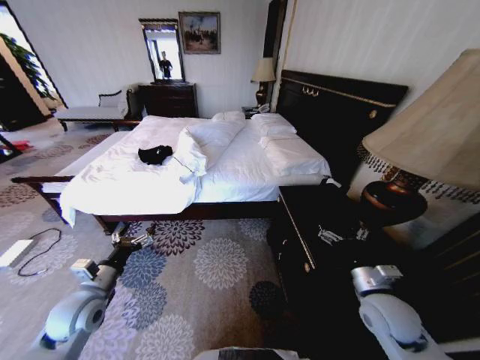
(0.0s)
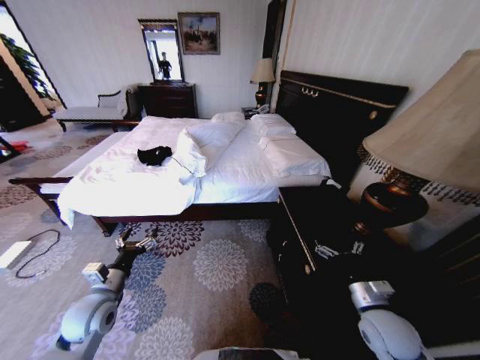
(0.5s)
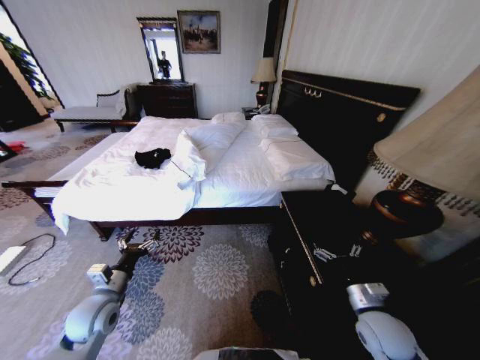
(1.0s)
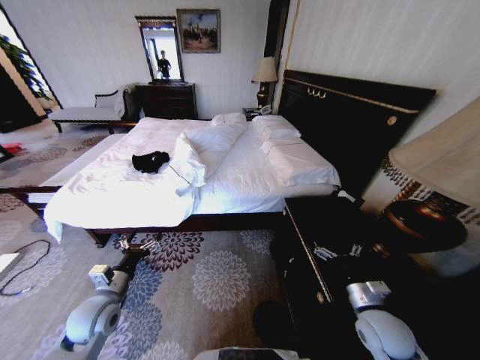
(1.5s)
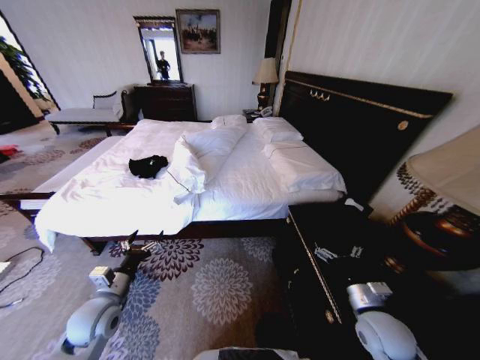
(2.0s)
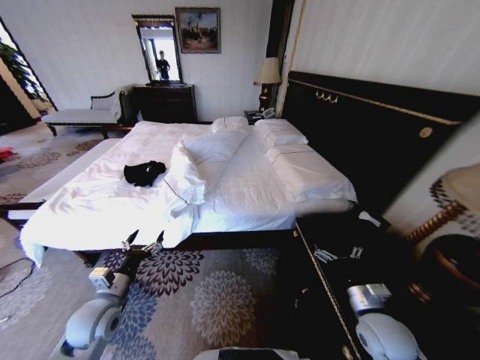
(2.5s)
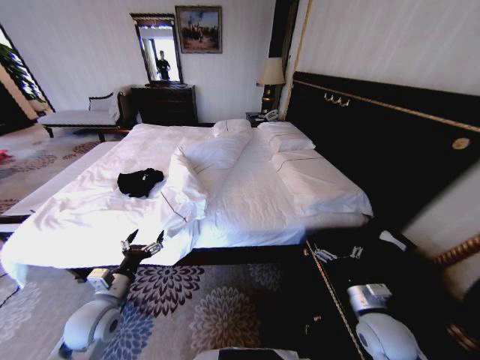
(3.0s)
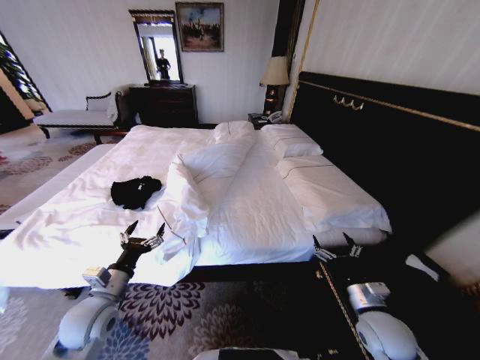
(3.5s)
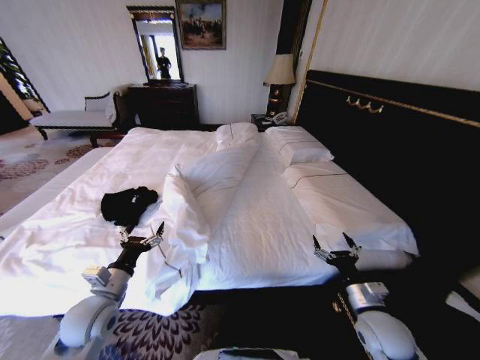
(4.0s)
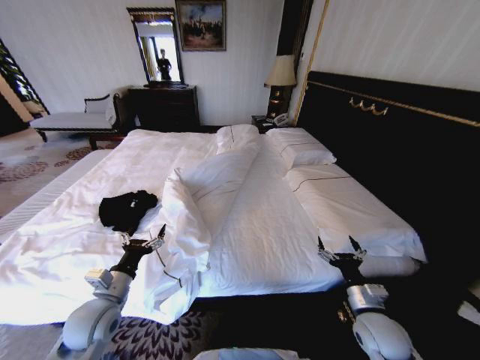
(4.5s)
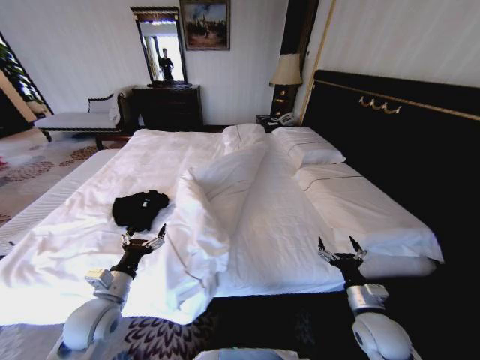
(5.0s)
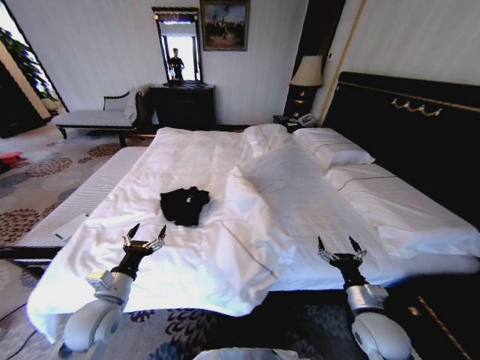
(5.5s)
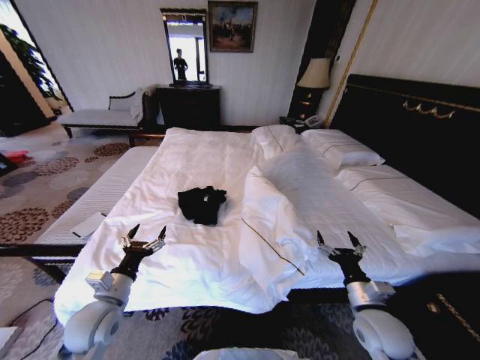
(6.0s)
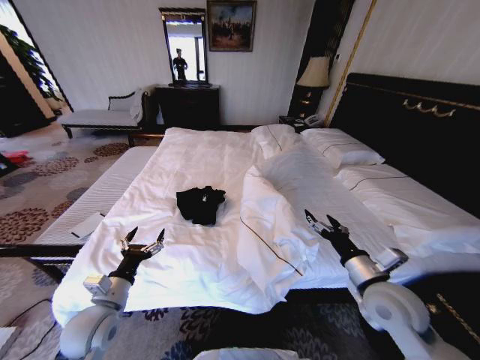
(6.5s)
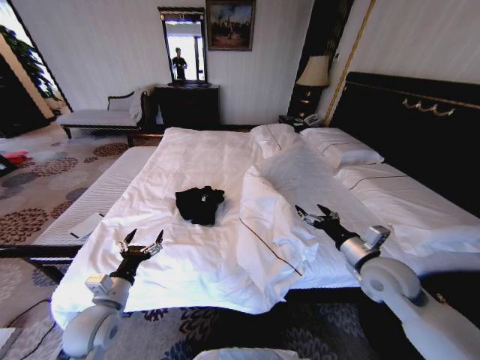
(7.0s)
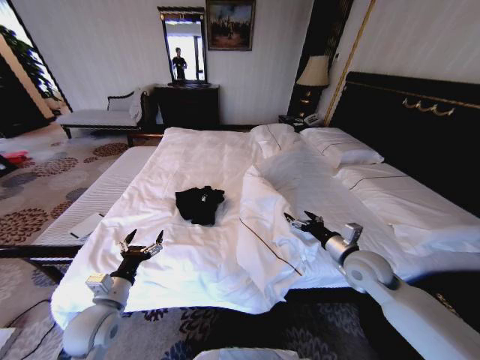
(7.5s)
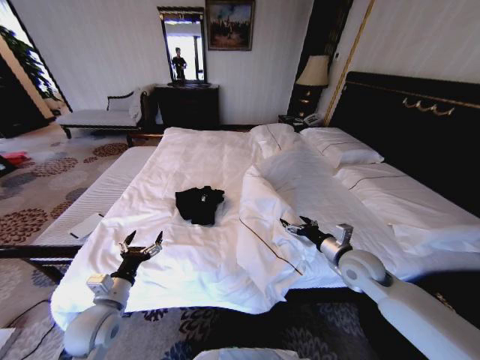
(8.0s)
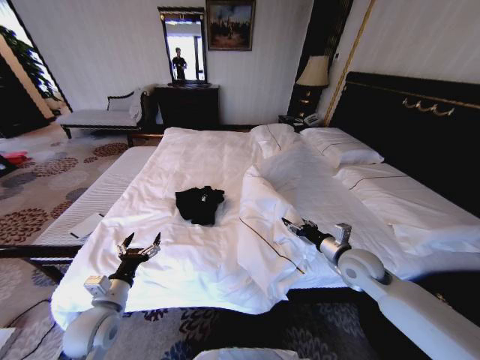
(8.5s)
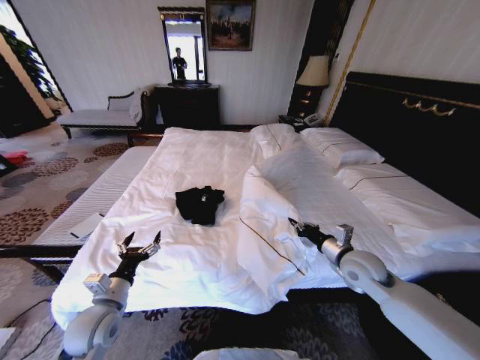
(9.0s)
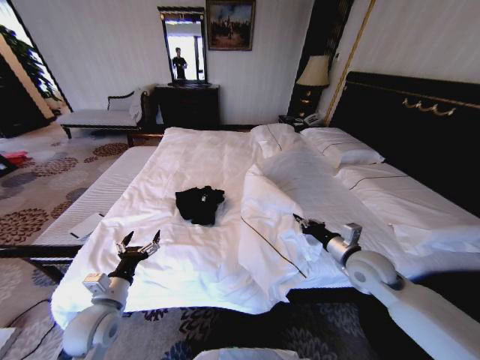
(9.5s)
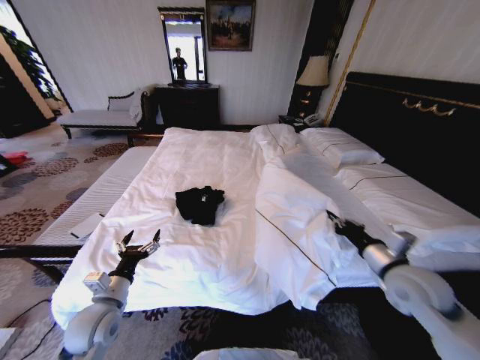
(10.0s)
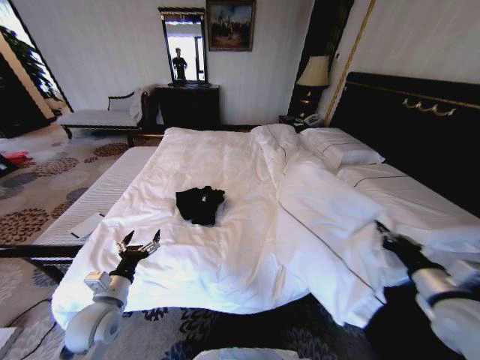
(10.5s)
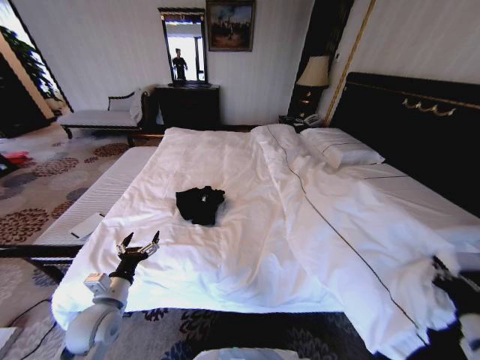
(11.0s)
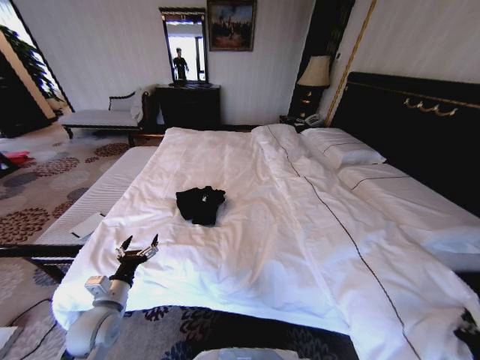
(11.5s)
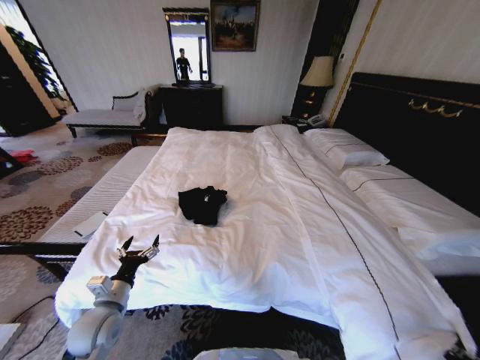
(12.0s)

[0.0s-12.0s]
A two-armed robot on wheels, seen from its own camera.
Task of the whole recording: Fold the clothes on the bed.
6.0s to 8.0s: The right gripper moves forward and upward, some 15 cm.
8.0s to 10.0s: The right gripper travels backward and to the right by roughly 10 cm, and closes its fingers.
10.0s to 12.0s: The right gripper is displaced downward, backward and to the right by about 35 cm.

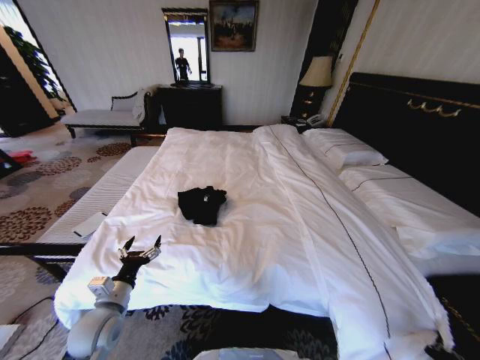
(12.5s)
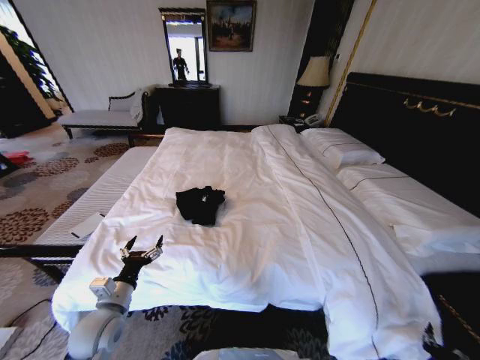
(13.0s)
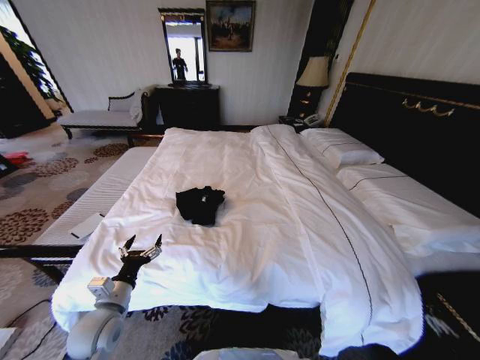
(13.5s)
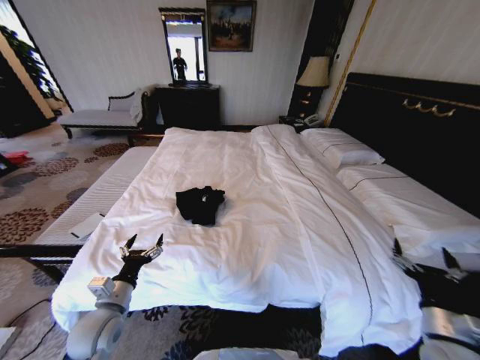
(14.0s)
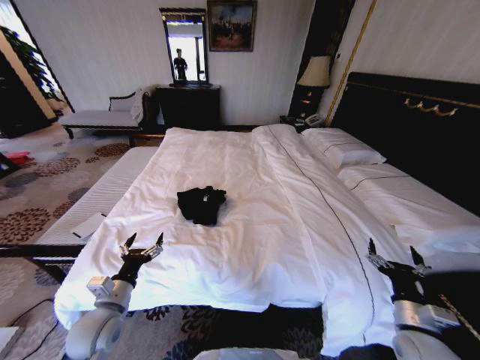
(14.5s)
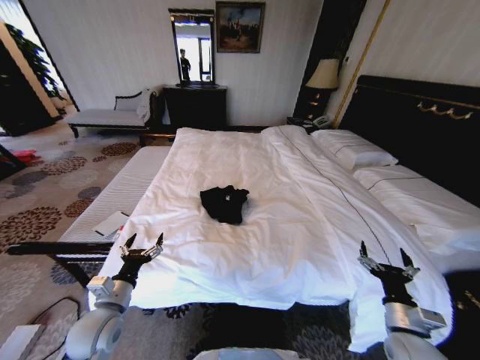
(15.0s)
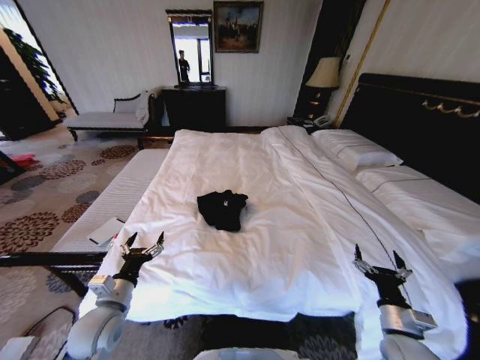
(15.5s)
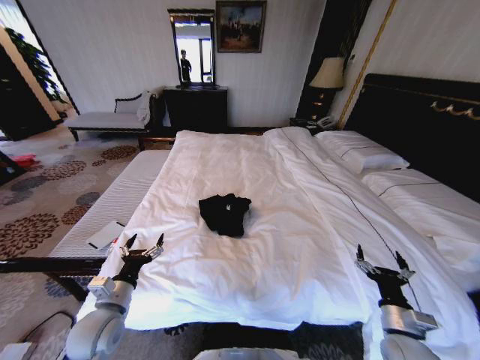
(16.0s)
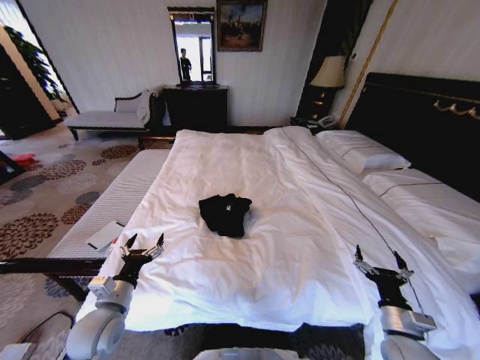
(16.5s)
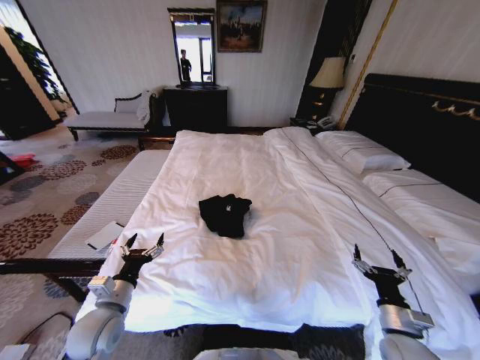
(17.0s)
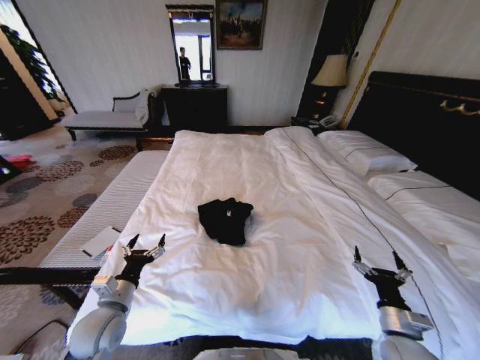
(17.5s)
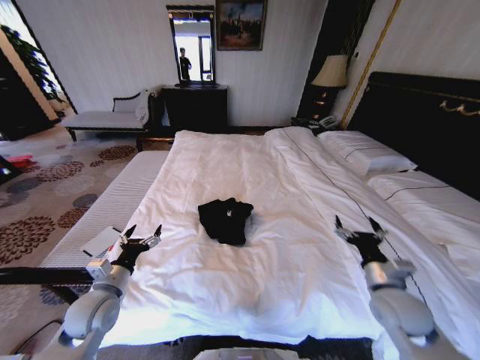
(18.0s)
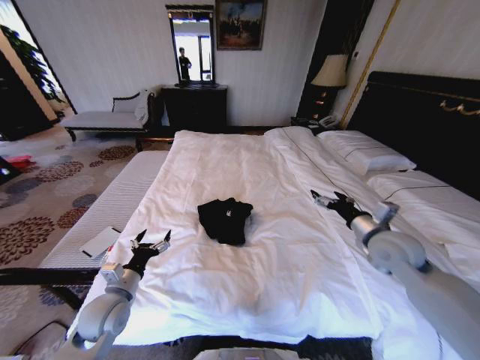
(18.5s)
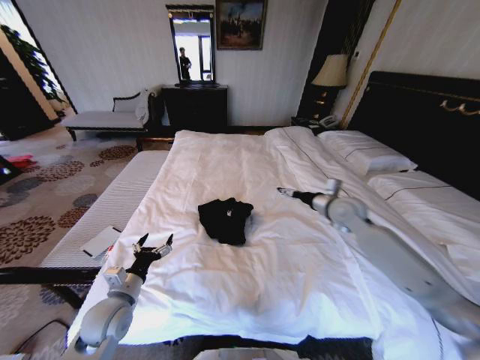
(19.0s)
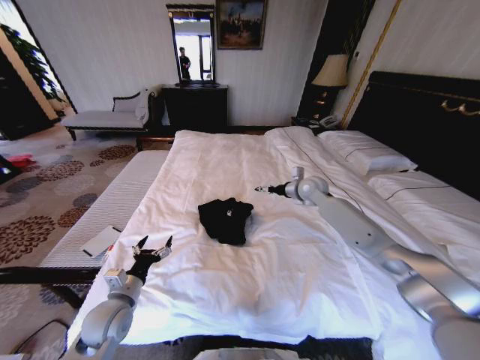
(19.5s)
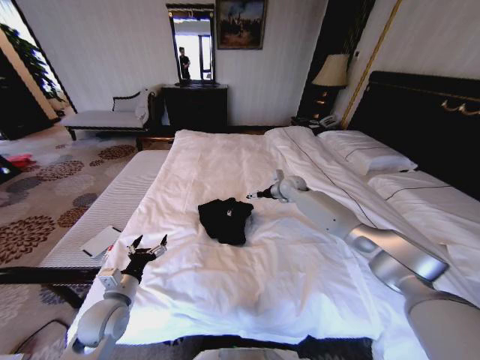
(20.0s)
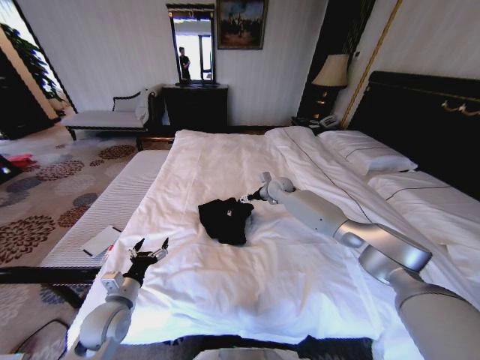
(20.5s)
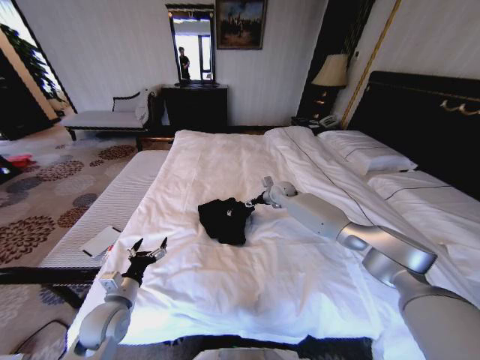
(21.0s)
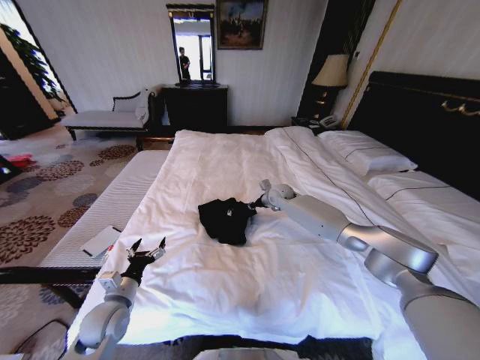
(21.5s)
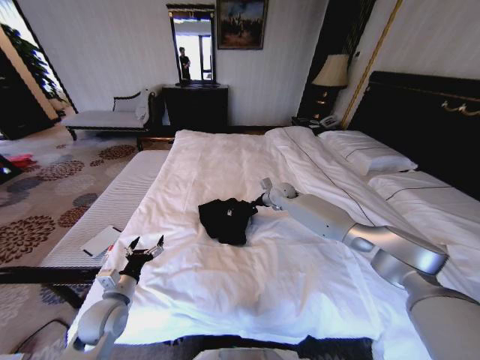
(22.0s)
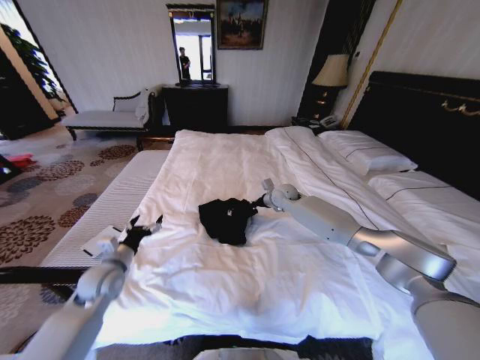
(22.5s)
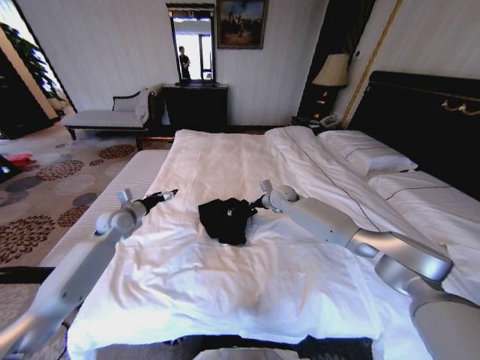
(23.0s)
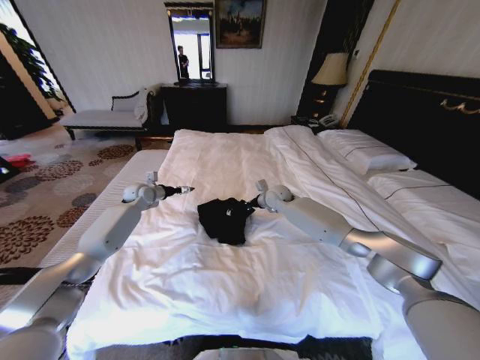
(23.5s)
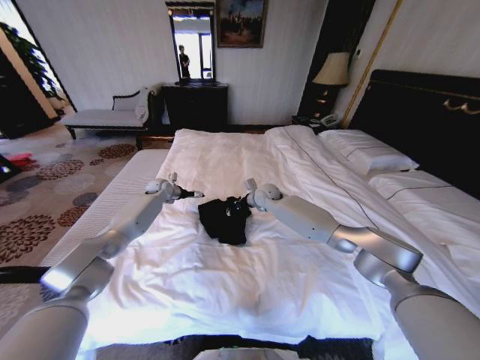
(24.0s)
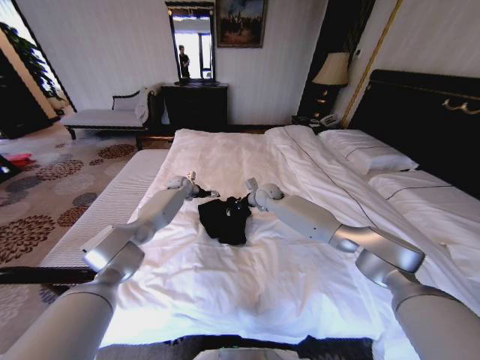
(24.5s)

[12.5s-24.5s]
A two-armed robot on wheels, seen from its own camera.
Task of the whole recording: Fold the clothes on the bed.
12.5s to 14.5s: The right gripper moves upward, to the left and forward, some 25 cm, and opens.
16.5s to 18.5s: The right gripper travels forward and upward by about 25 cm.
18.5s to 20.5s: The right gripper heads forward and to the left, covering approximately 35 cm.
20.5s to 22.5s: The right gripper closes. Meanwhile the left gripper heads forward, covering about 10 cm.
22.5s to 24.5s: The left gripper is displaced forward by some 40 cm; the right gripper shifts about 5 cm to the left.

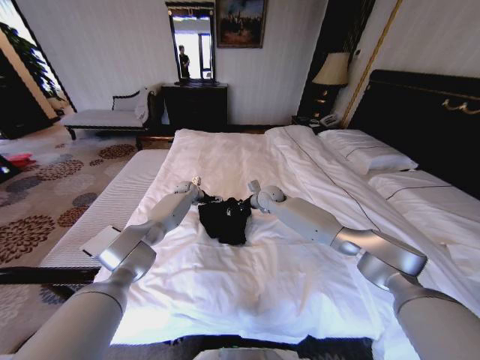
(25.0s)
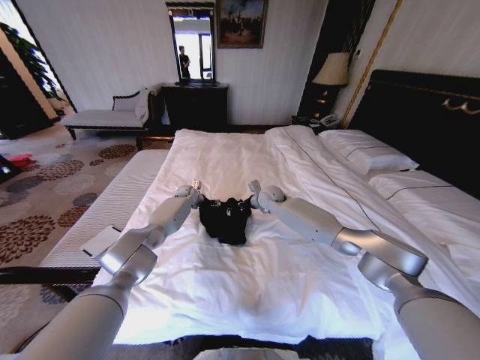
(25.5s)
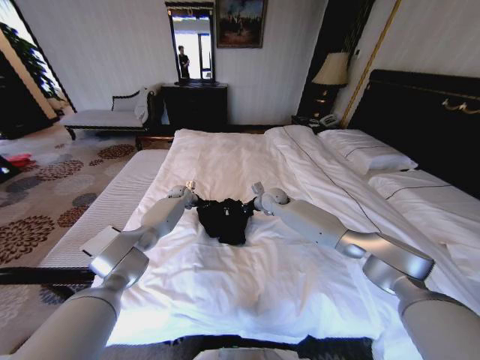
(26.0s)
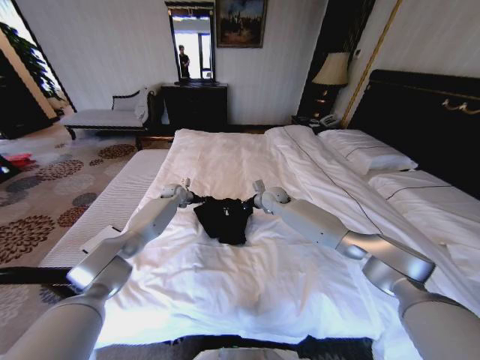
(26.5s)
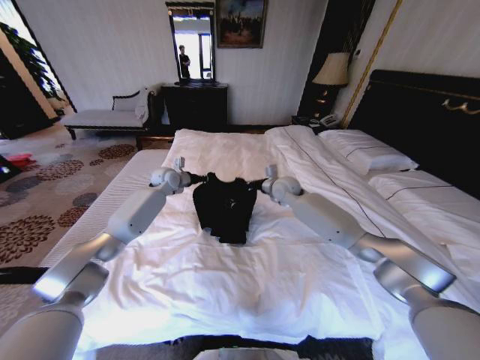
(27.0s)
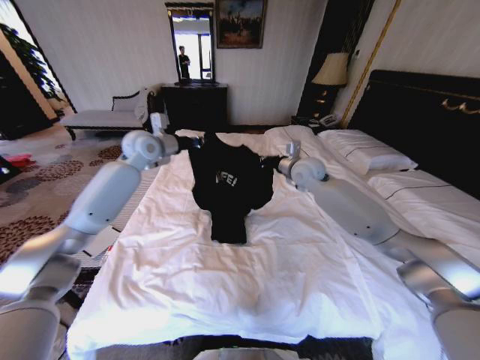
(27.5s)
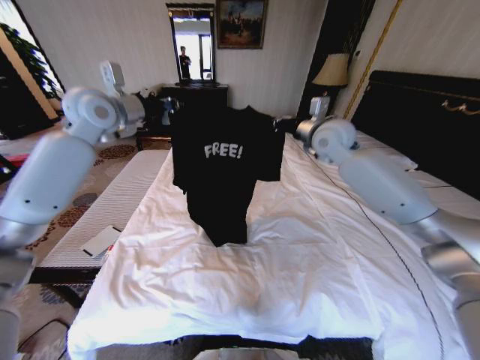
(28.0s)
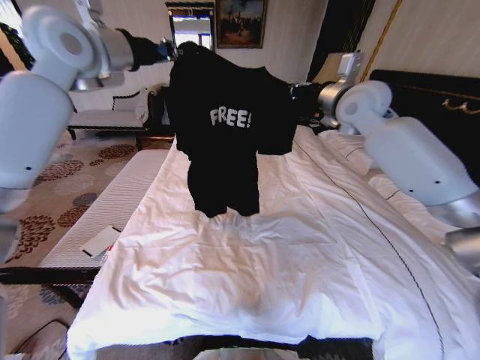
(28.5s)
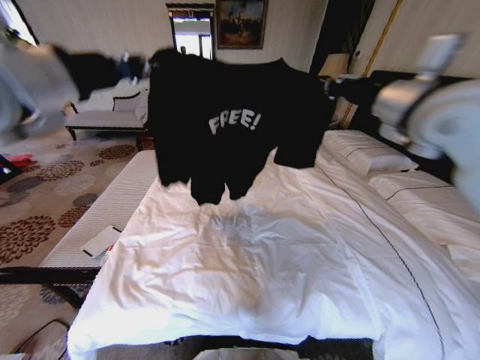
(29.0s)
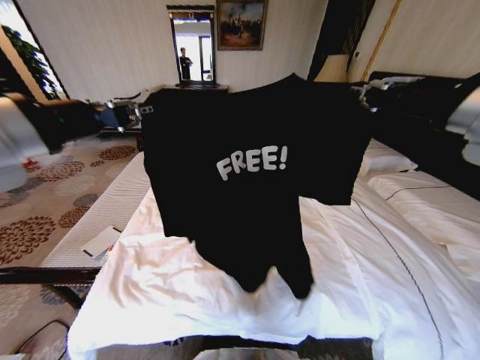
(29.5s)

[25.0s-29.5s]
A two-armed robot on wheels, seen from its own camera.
Task of the whole recording: Fold the clothes on the bed.
25.0s to 27.0s: The left gripper heads upward and backward, covering about 15 cm, and closes its fingers, while the right gripper moves upward, roughly 5 cm.
27.0s to 29.5s: Both grippers move backward and upward, some 40 cm.
